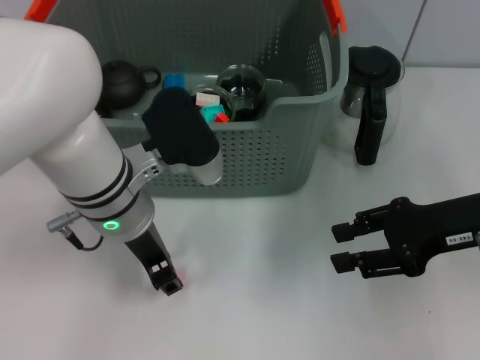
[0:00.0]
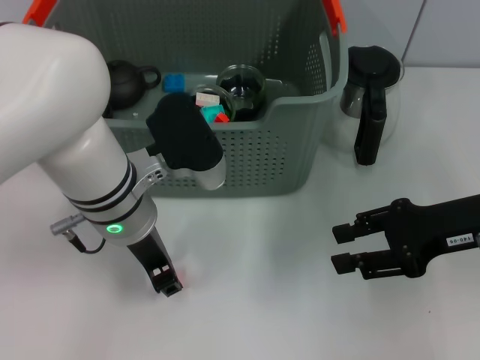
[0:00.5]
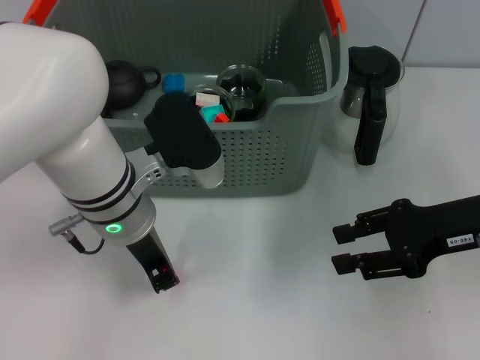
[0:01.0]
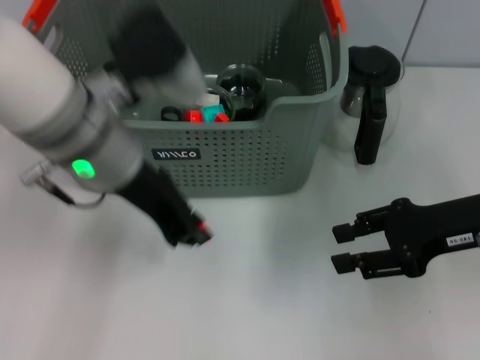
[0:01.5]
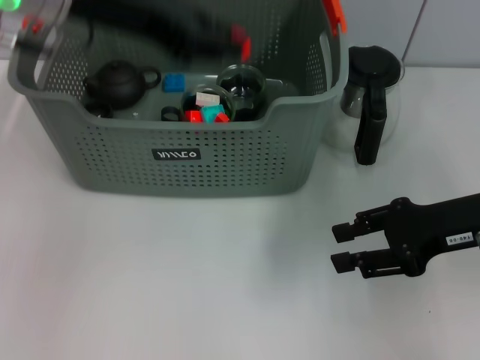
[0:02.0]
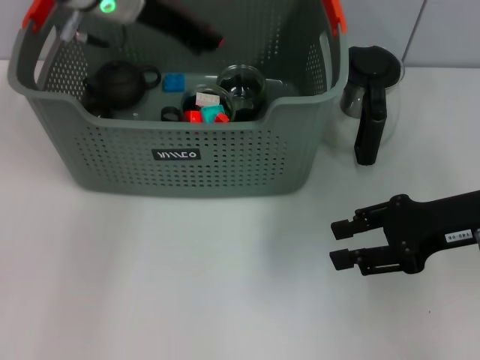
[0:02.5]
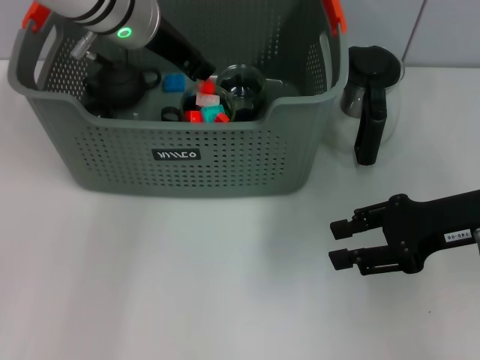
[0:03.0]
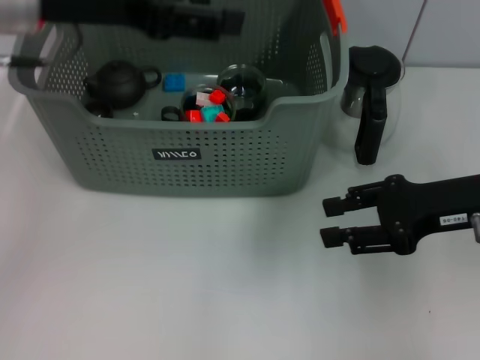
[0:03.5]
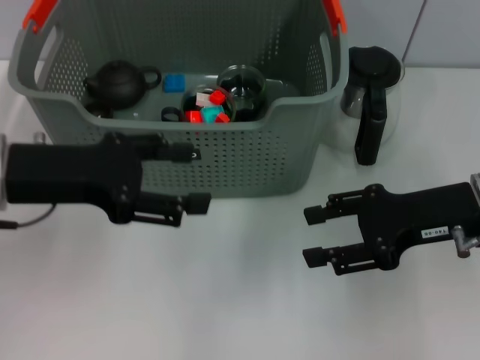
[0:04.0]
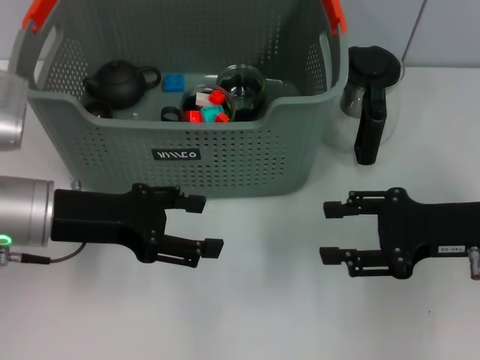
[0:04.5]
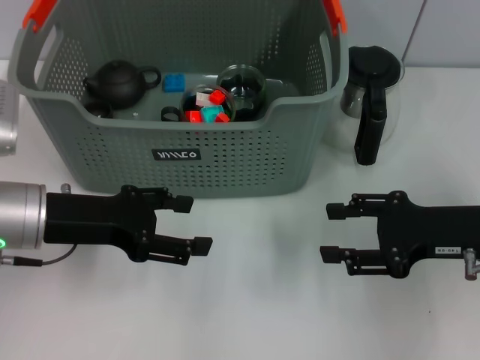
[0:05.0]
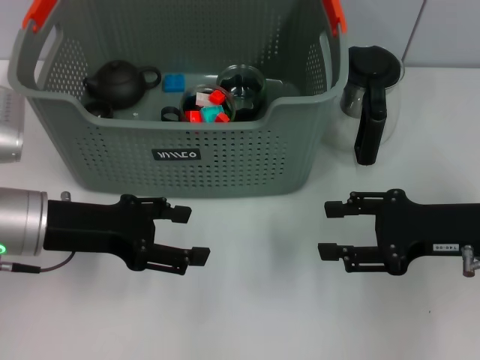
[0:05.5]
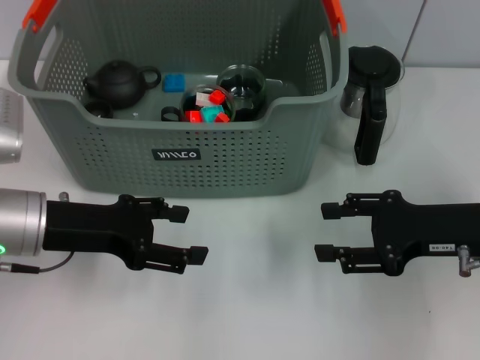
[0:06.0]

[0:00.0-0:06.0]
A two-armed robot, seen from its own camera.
Task of the whole recording: pick up the teacup on the table and place it into the storage bin, pick up the block on the table and place it into the storage bin.
Step, 0:01.5 to 0:03.5: Place the orange block in the storage box with left gripper.
0:00.0 to 0:02.0: The left gripper heads upward, covering approximately 15 cm, and closes up.
0:02.0 to 0:04.0: The left gripper is displaced downward, backward and to the left by some 15 cm, and opens.
0:04.0 to 0:06.0: The left gripper heads downward, covering some 5 cm.
